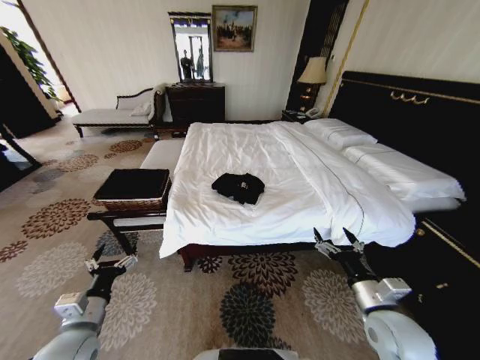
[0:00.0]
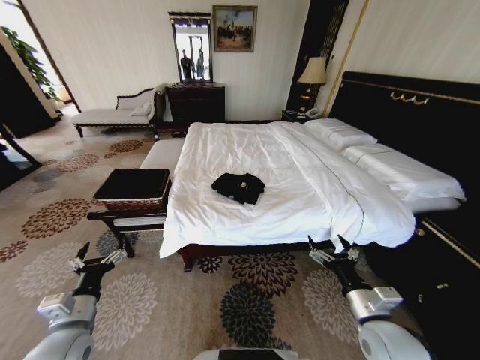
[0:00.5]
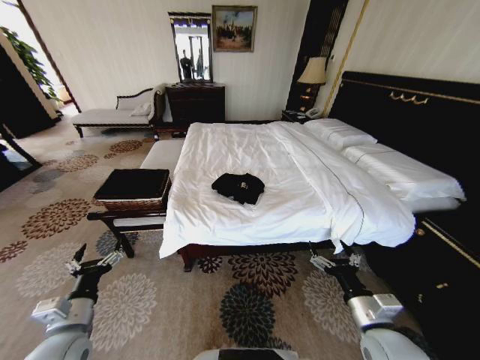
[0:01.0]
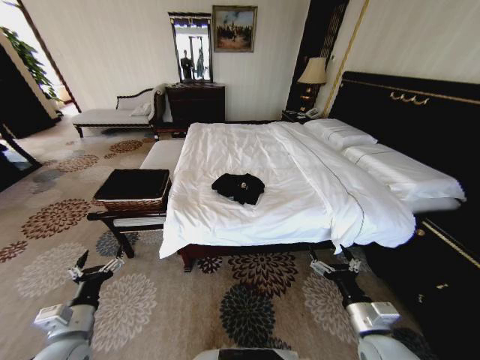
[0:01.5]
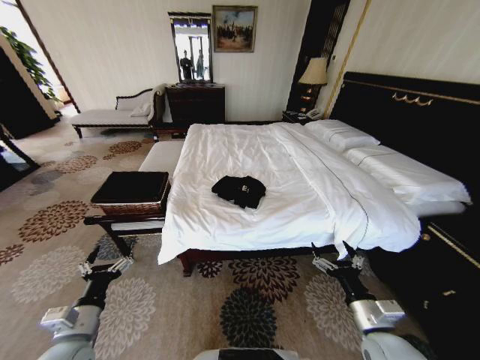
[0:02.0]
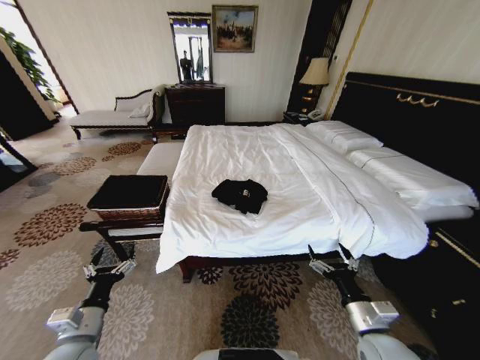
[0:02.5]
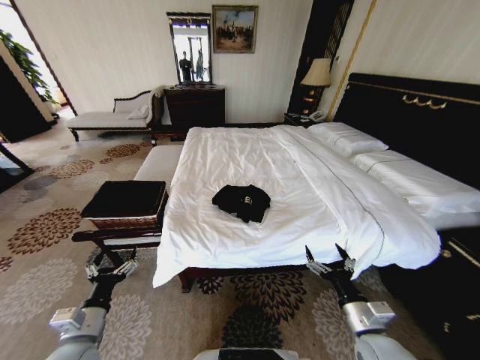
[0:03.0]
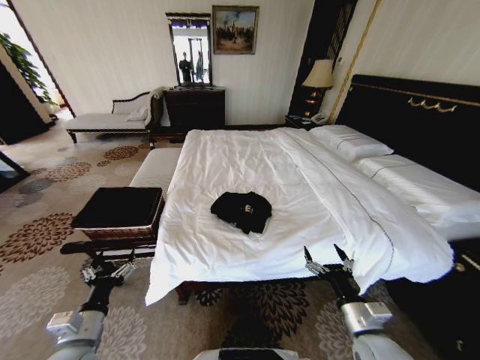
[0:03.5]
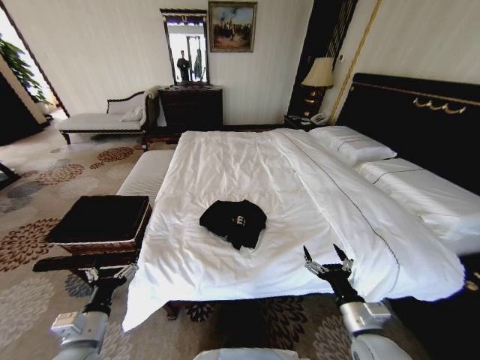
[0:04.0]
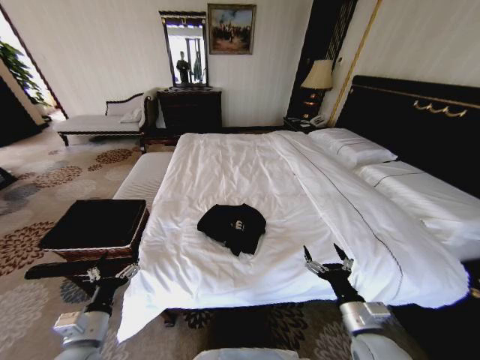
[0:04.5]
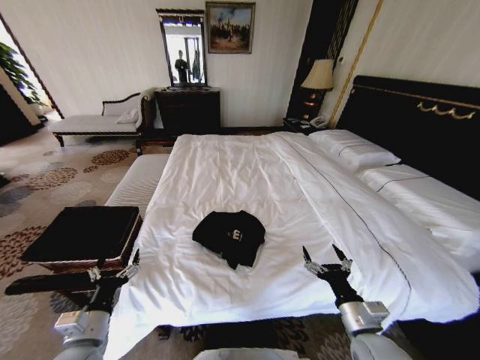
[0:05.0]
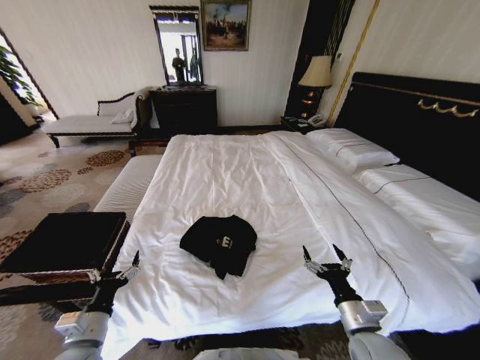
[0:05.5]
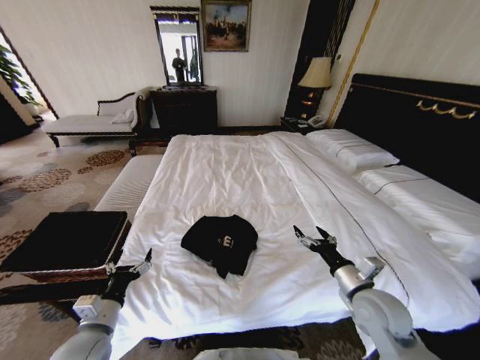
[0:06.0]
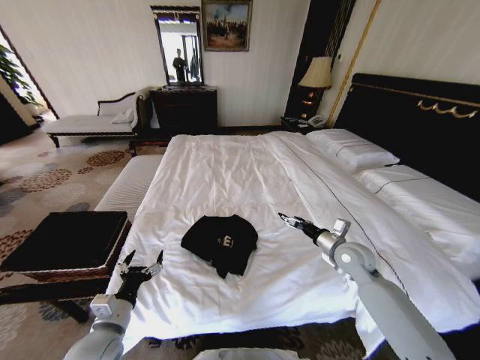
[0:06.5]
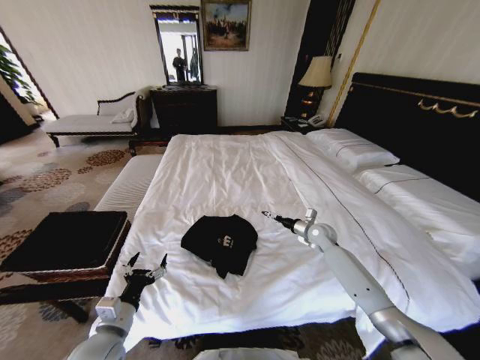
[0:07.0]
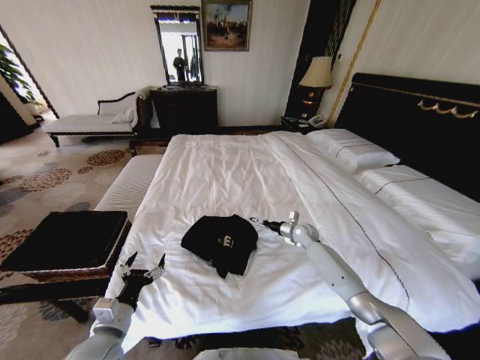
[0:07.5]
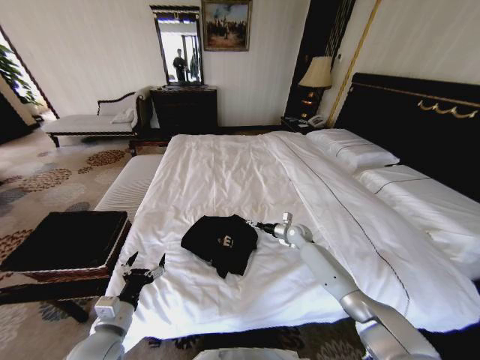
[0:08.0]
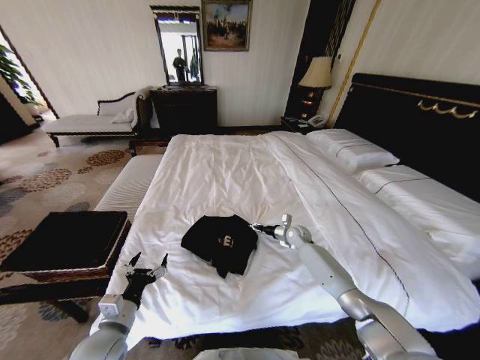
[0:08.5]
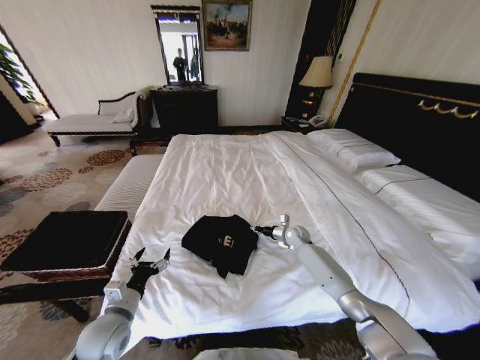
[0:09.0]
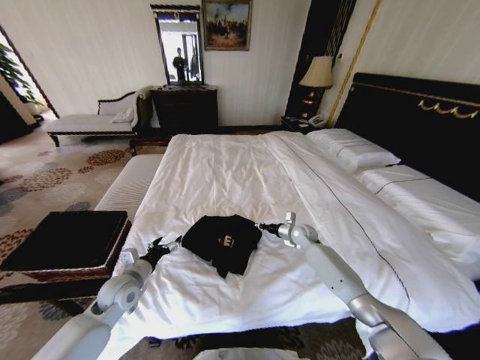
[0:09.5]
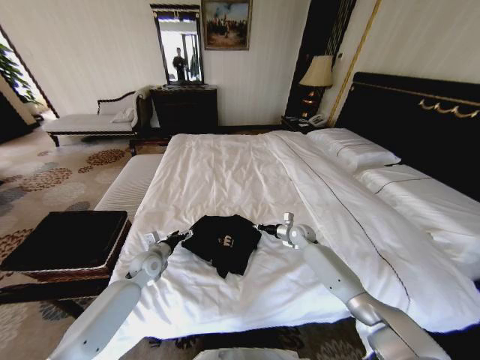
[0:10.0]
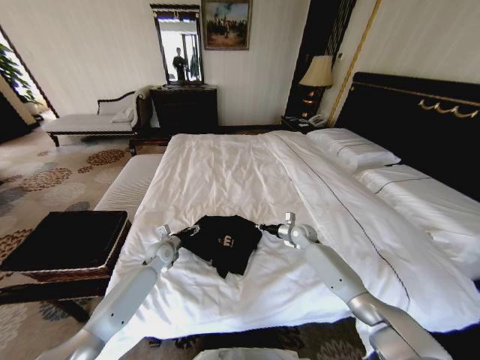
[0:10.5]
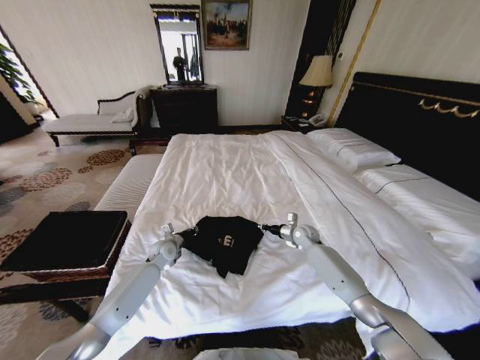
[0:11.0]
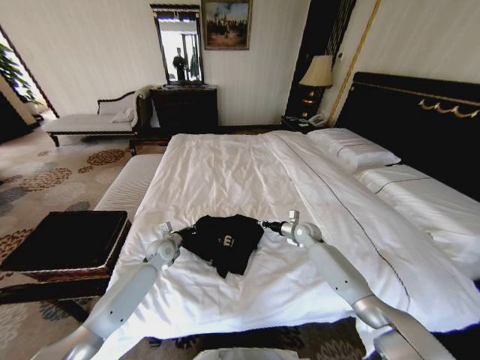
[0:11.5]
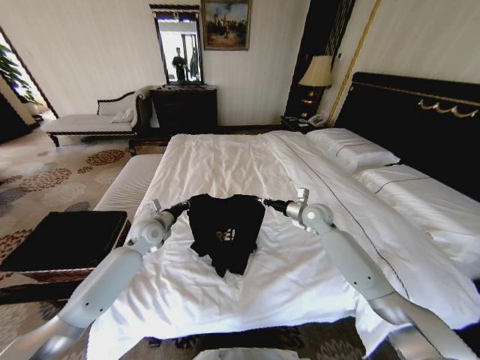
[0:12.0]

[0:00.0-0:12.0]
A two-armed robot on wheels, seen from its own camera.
Task of the whole recording: Fold the clothes on the bed and place them into the basket.
0:04.0 to 0:06.0: The right gripper heads forward, covering roughly 10 cm.
0:06.0 to 0:08.0: The right gripper goes about 30 cm forward and downward.
0:08.0 to 0:10.0: The right gripper closes. Meanwhile the left gripper shifts approximately 20 cm forward.
0:10.0 to 0:12.0: The left gripper goes approximately 10 cm upward and forward, and closes its fingers; the right gripper goes some 15 cm upward.

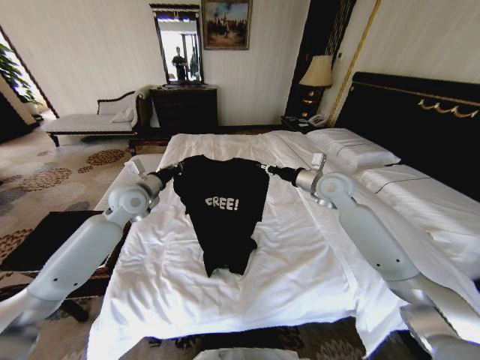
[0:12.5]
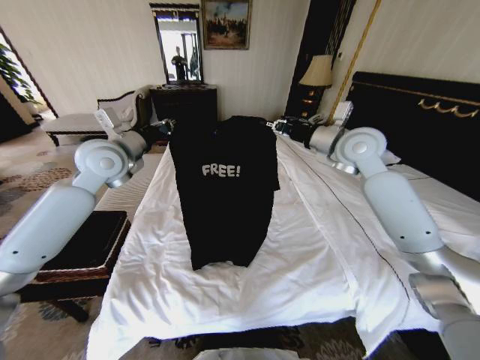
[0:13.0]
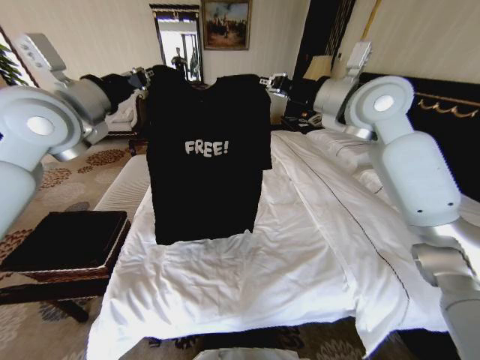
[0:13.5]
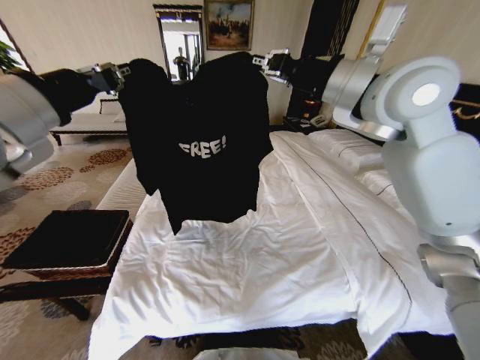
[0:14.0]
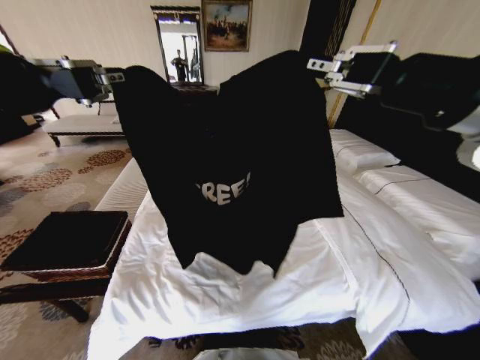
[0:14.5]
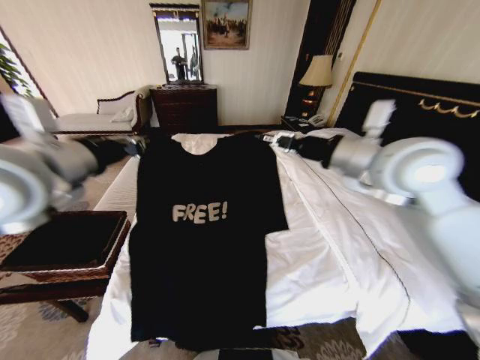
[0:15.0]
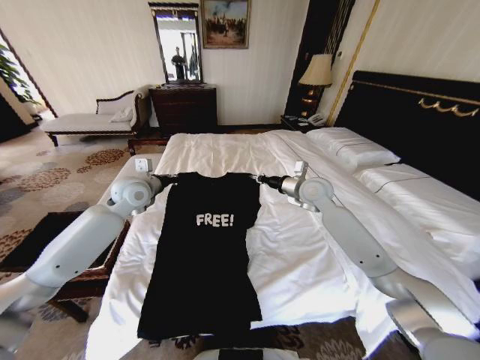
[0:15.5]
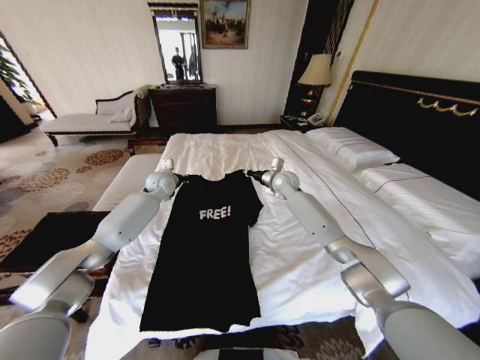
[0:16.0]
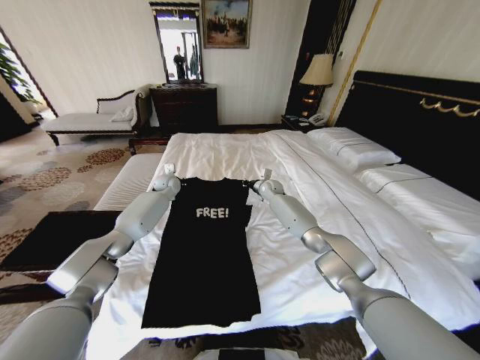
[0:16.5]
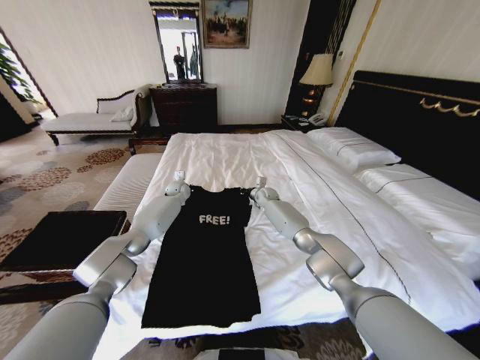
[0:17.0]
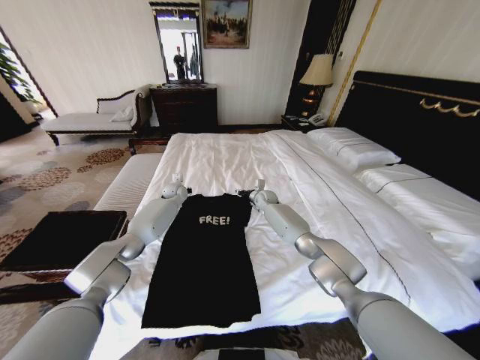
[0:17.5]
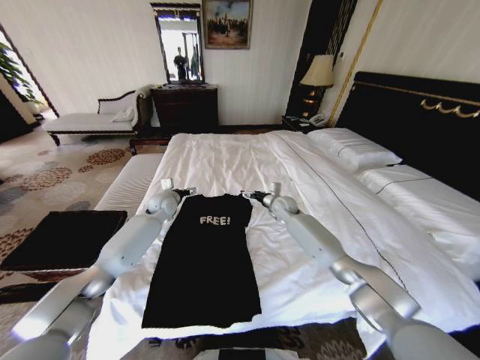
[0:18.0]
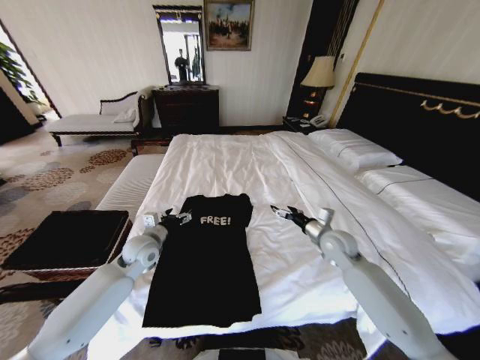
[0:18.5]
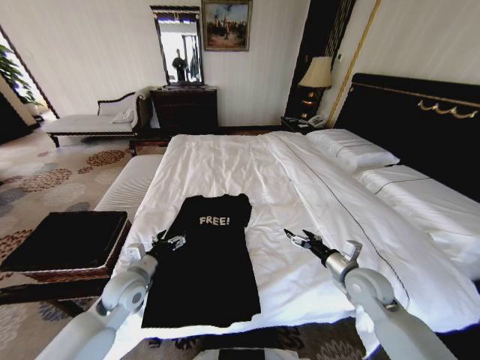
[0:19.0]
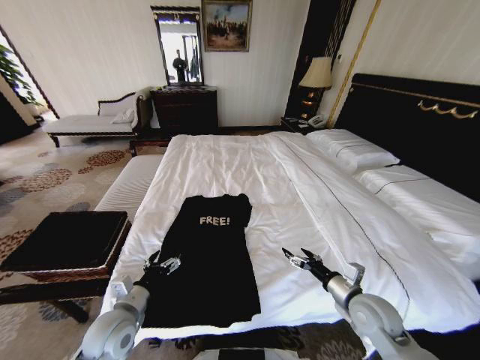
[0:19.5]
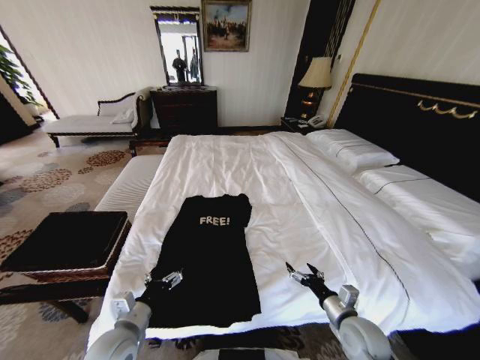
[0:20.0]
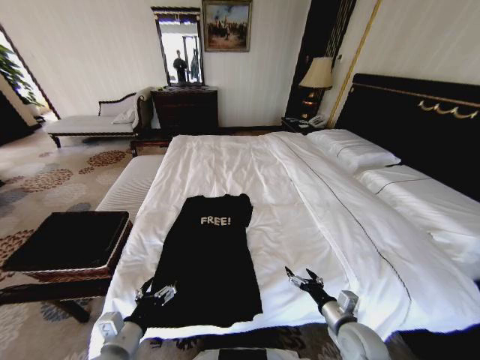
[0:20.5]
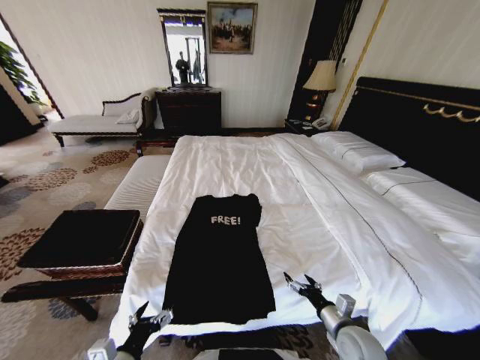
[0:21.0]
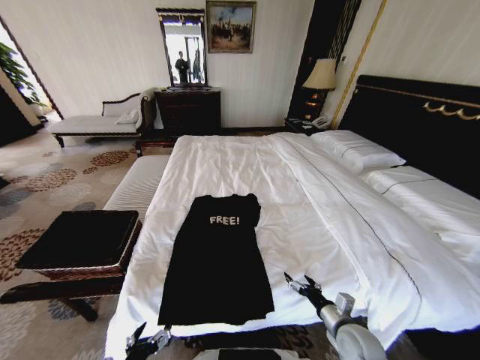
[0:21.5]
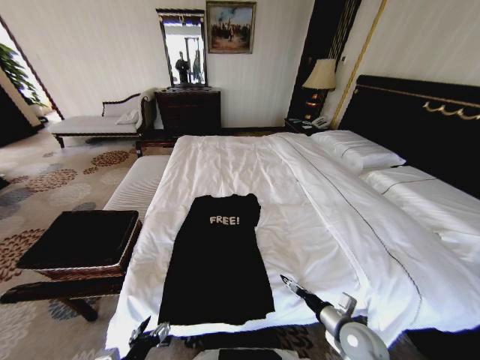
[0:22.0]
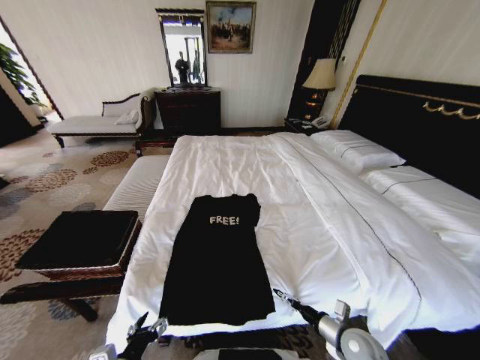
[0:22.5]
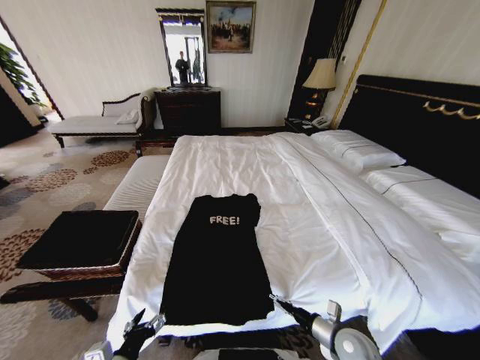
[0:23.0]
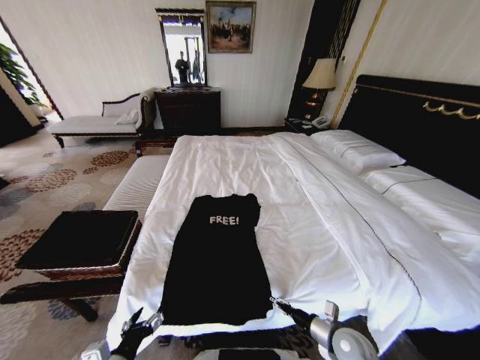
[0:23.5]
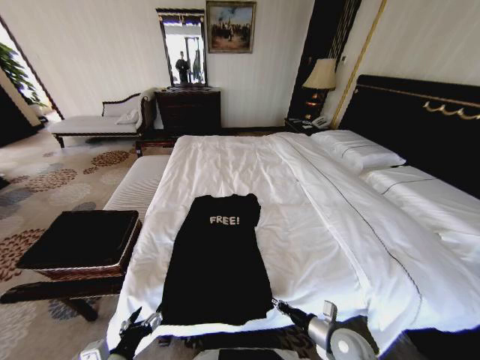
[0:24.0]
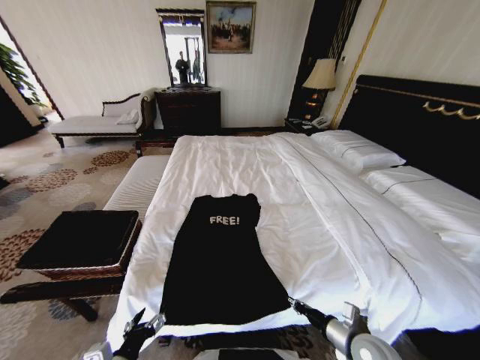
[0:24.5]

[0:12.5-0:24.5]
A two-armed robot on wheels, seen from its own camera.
Task of the whole recording: Fold the clothes on the bed and place them into the basket.
0:12.5 to 0:14.5: The left gripper moves backward and upward, some 40 cm, while the right gripper goes roughly 35 cm upward and backward.
0:14.5 to 0:16.5: Both grippers travel together forward and downward, approximately 60 cm.
0:16.5 to 0:18.5: The right gripper goes roughly 30 cm backward and to the right, and opens up. The left gripper heads backward, covering about 25 cm, and opens.
0:18.5 to 0:20.5: The right gripper shifts about 25 cm backward and downward; the left gripper heads backward, covering about 25 cm.
0:20.5 to 0:22.5: The left gripper heads backward, covering approximately 5 cm.
0:22.5 to 0:24.5: The right gripper closes its fingers.

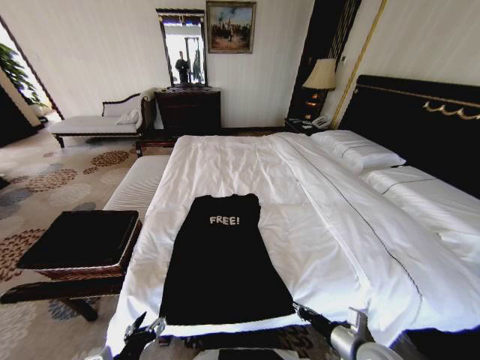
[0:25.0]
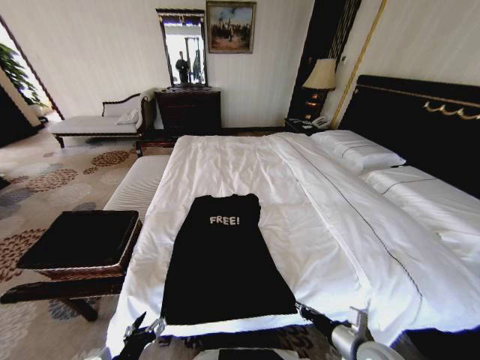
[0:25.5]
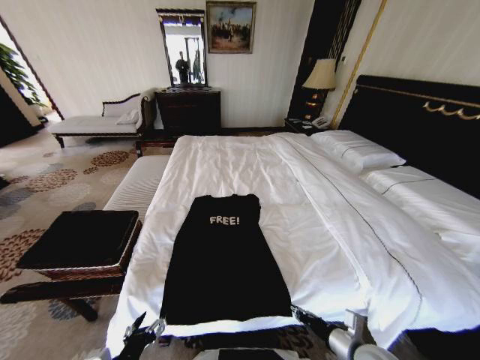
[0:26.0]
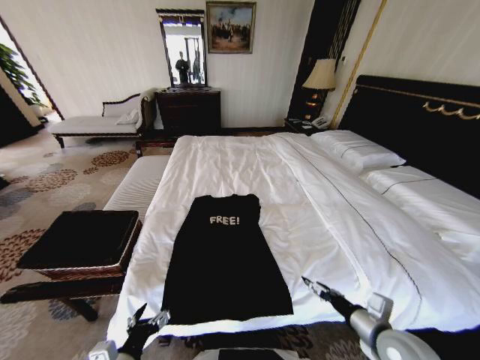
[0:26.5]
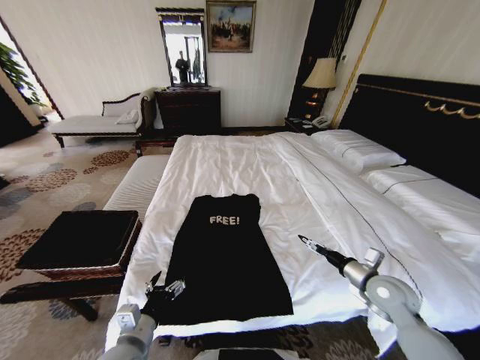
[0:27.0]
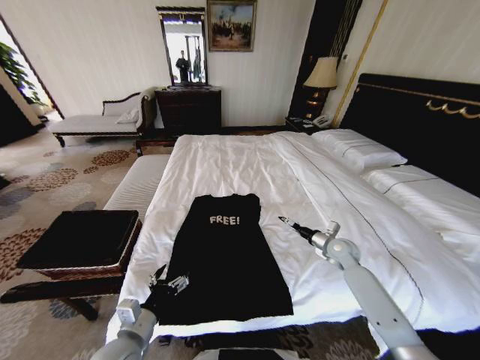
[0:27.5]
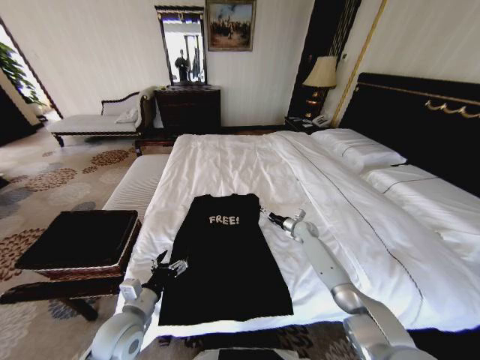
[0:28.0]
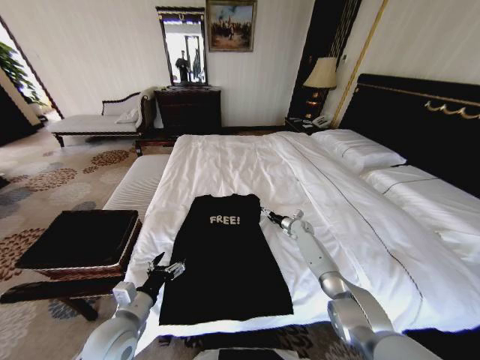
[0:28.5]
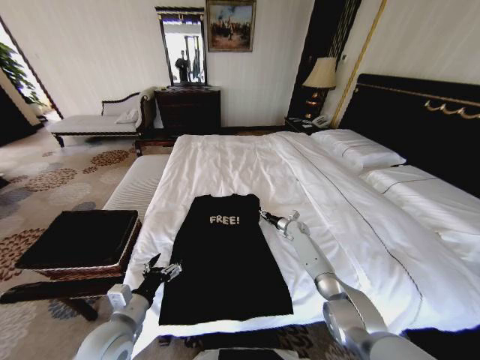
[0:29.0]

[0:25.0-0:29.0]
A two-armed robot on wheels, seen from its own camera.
Task of the whole recording: Fold the clothes on the bed and place them into the basket.
0:25.0 to 0:27.0: The right gripper is displaced forward, to the right and upward by approximately 15 cm, and opens up, while the left gripper shifts roughly 5 cm forward.
0:27.0 to 0:29.0: The right gripper goes approximately 35 cm forward and downward, and closes its fingers. Meanwhile the left gripper changes place by roughly 5 cm.
